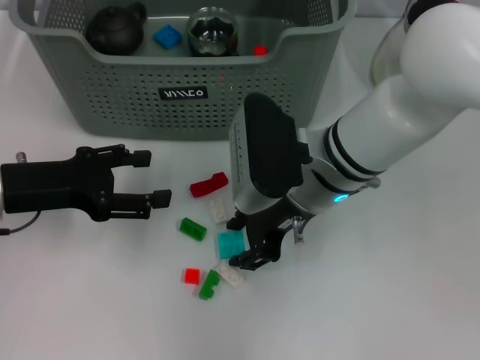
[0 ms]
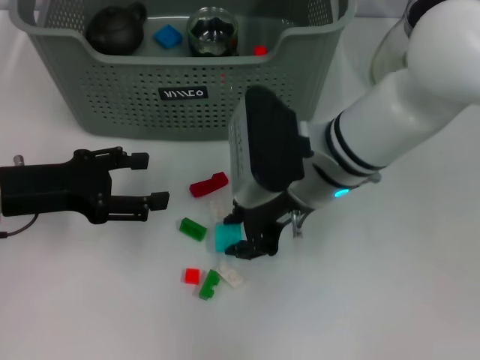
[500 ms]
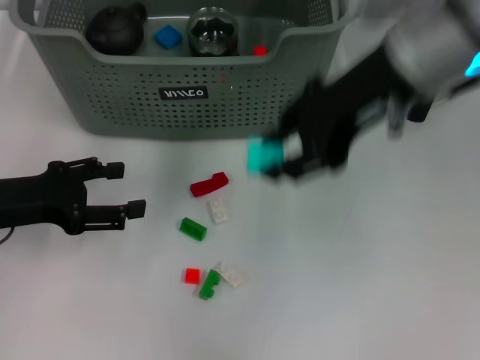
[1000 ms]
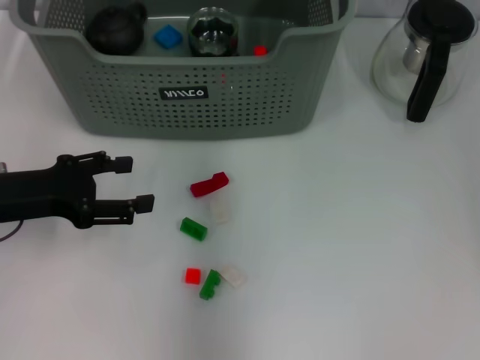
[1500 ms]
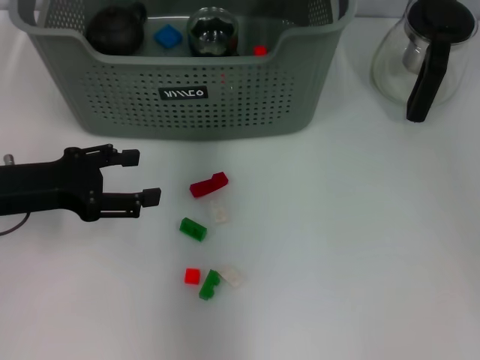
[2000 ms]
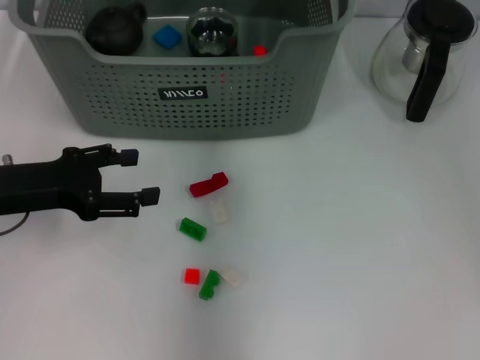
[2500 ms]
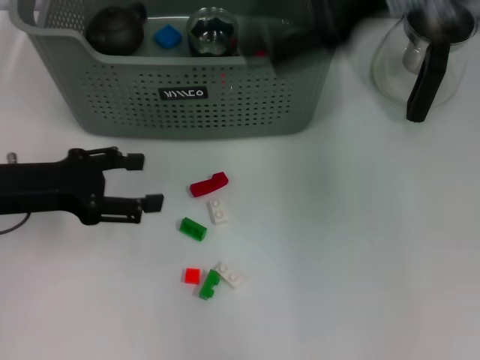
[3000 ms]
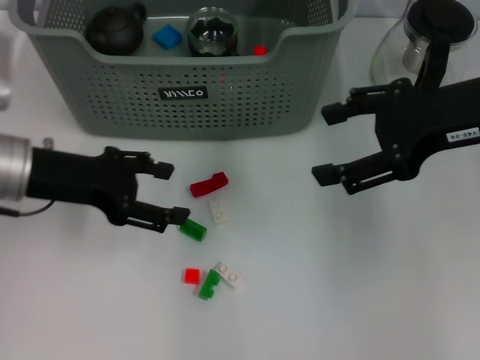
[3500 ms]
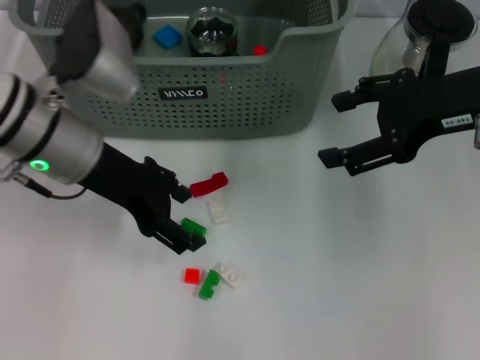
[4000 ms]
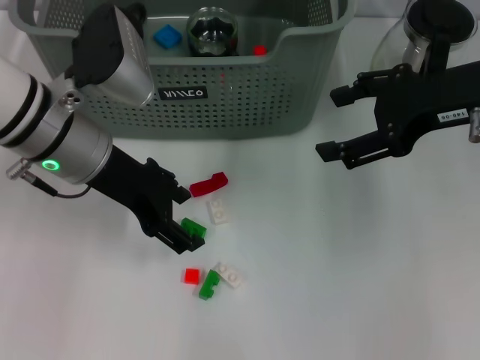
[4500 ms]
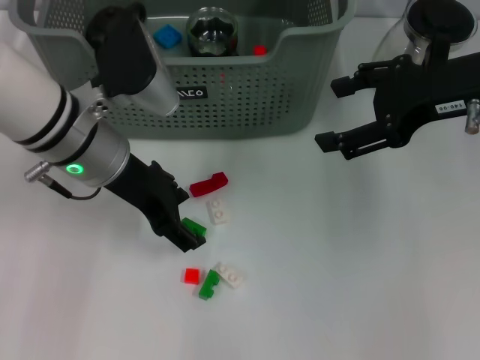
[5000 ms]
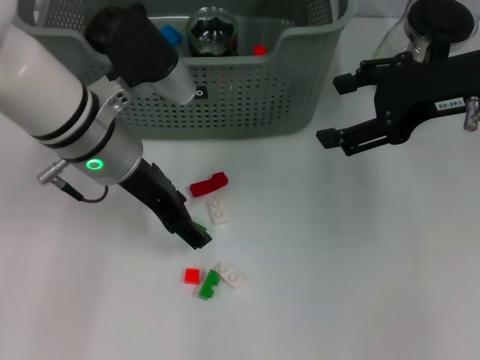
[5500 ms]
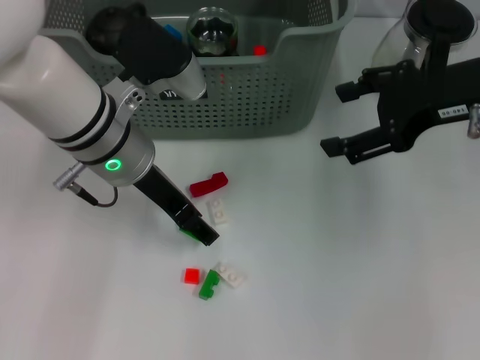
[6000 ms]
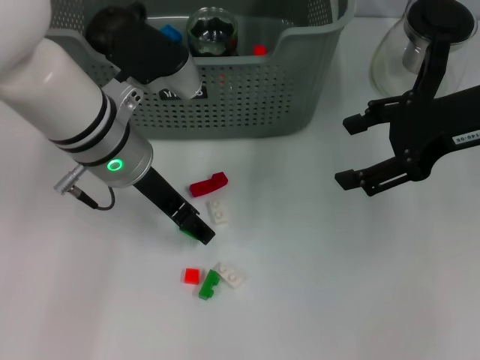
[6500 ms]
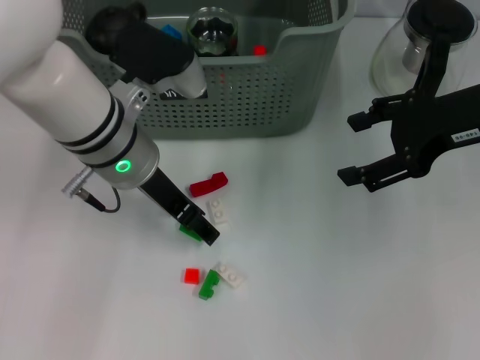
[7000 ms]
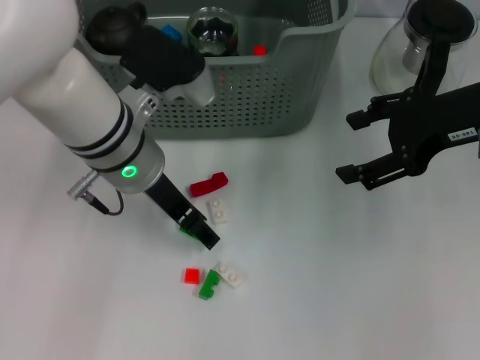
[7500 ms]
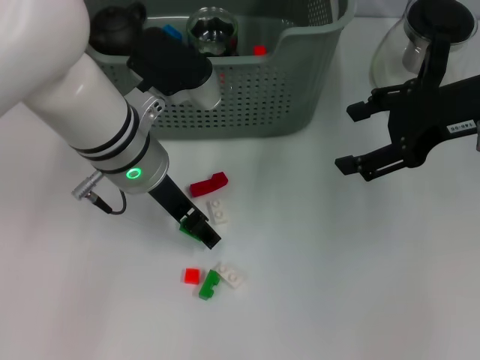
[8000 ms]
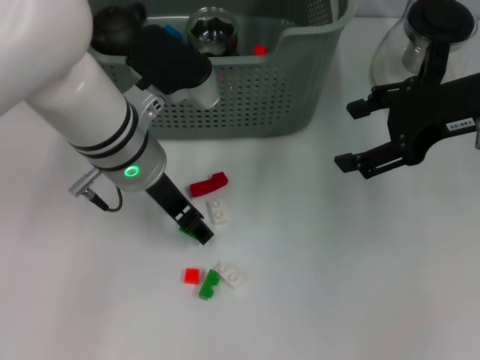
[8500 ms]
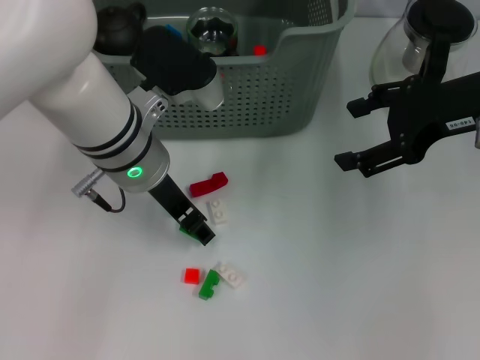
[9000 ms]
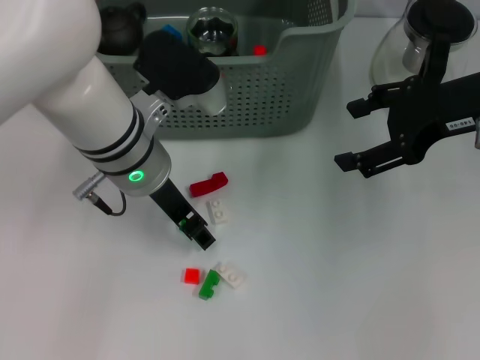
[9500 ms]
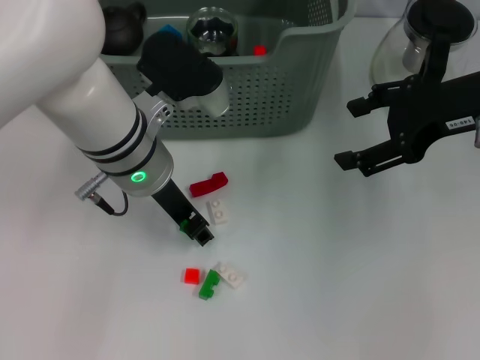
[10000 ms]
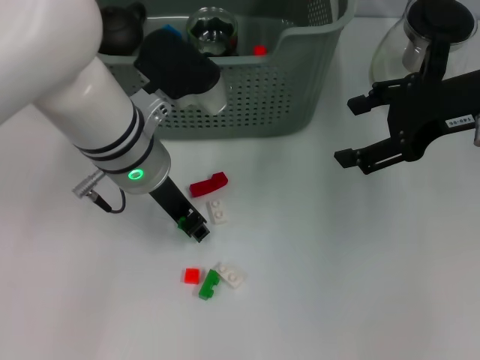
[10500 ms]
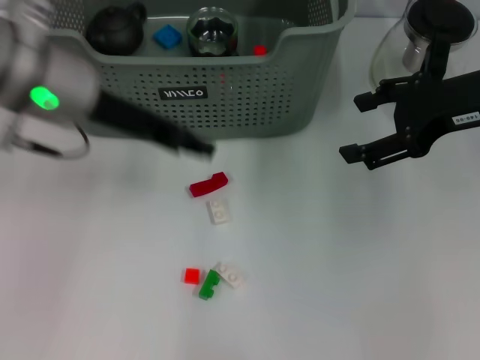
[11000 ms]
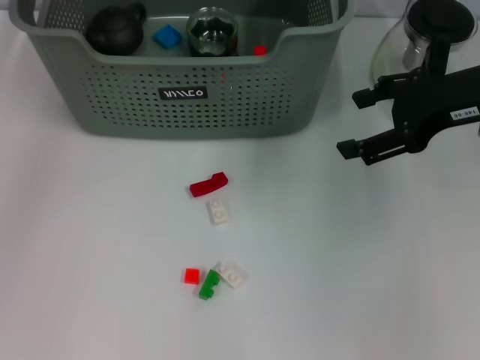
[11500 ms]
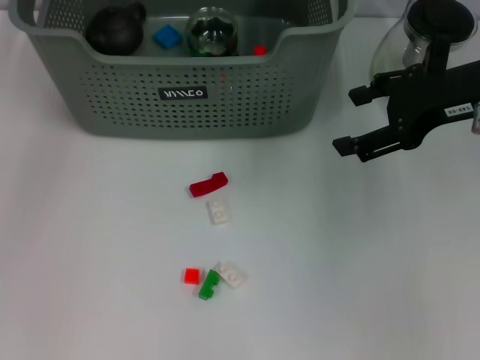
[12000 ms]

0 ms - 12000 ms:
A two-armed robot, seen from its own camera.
Task of the whole recording: pick up the teacup on the table and place it into the storage bin, pick up the block on the table and place it into the storage bin.
Step, 500 ms - 2000 ms: Place the light blue block in the storage box with right gripper.
Step, 3000 ms - 10000 ms: Grasp the green block with right gripper.
0 ms - 2000 ms: The right gripper shifts about 20 cm upward and forward.
2000 ms - 4000 ms: The right gripper heads to the right and backward, covering roughly 20 cm, and opens its fingers. Meanwhile the left gripper goes approximately 15 cm to the right, upward and forward.
4000 ms - 6000 ms: The left gripper moves approximately 5 cm.
6000 ms - 8000 ms: The grippers stay close to where they were, moving slightly.
8000 ms - 10000 ms: Neither gripper changes place.
10000 ms - 12000 ms: The left gripper moves upward, to the left and forward, roughly 20 cm.

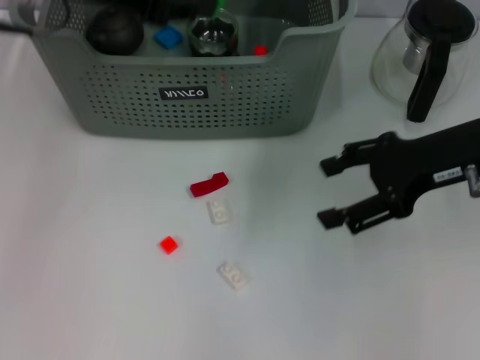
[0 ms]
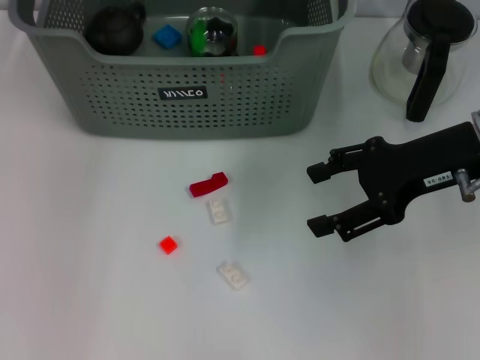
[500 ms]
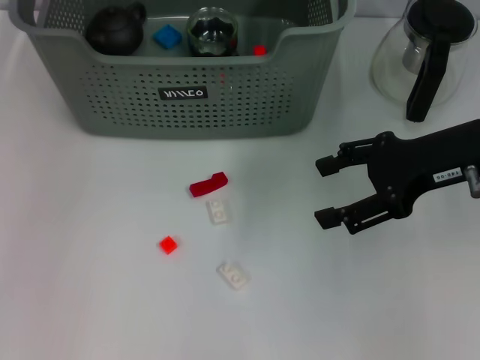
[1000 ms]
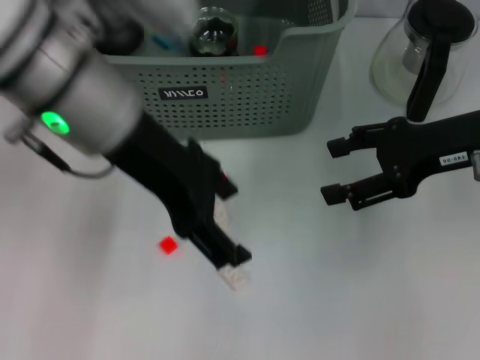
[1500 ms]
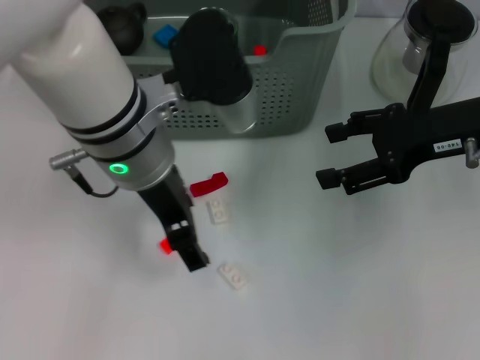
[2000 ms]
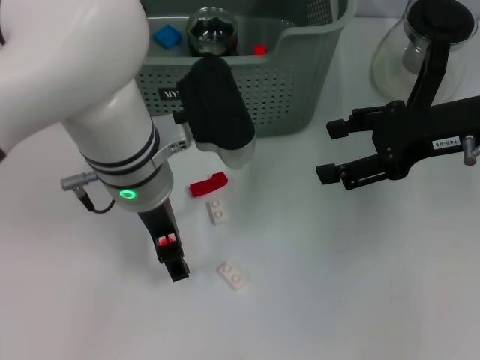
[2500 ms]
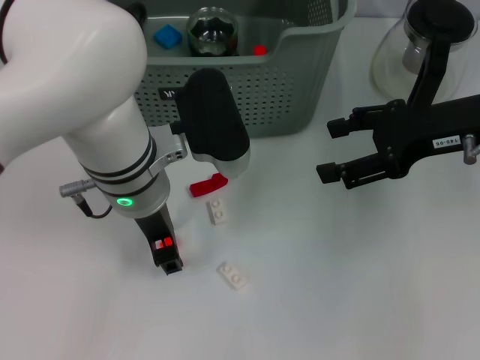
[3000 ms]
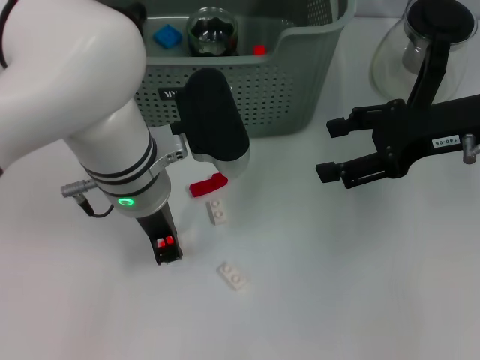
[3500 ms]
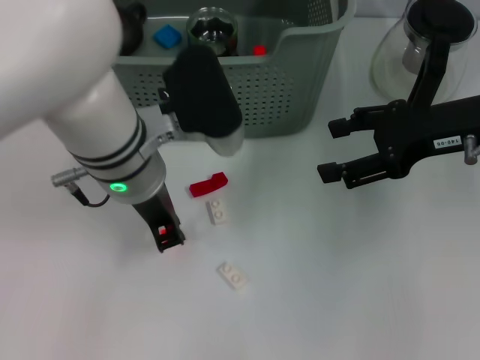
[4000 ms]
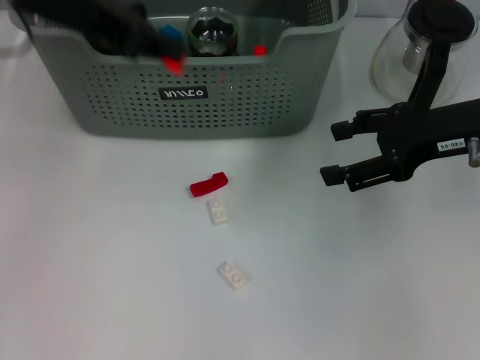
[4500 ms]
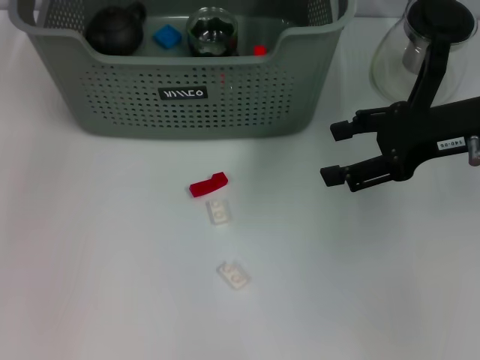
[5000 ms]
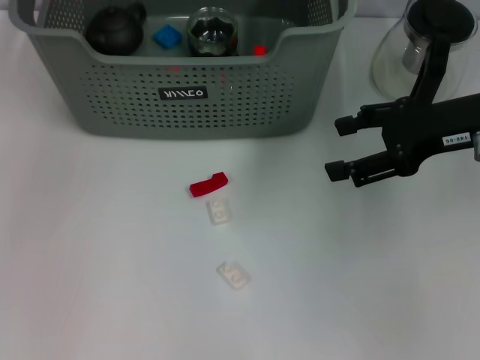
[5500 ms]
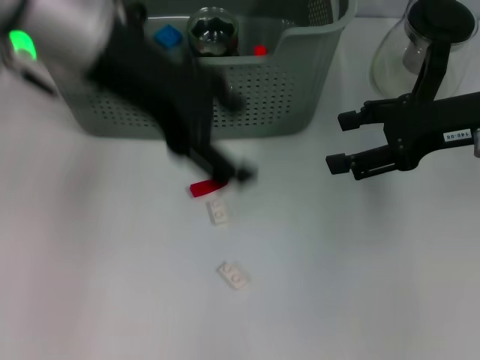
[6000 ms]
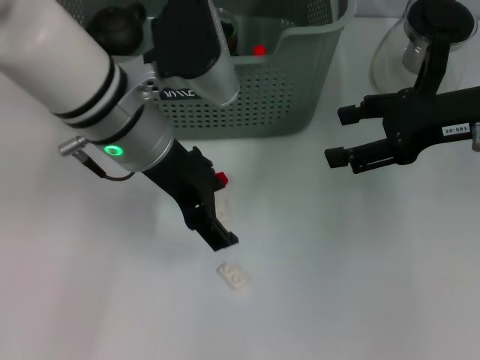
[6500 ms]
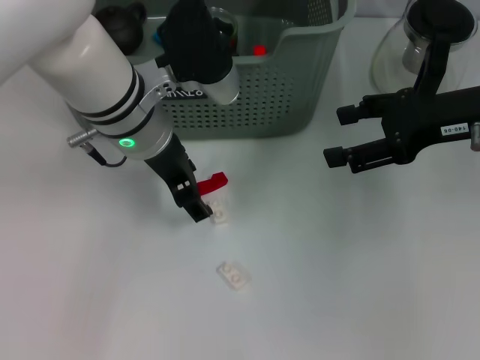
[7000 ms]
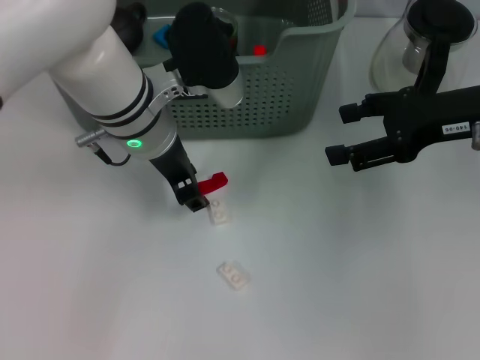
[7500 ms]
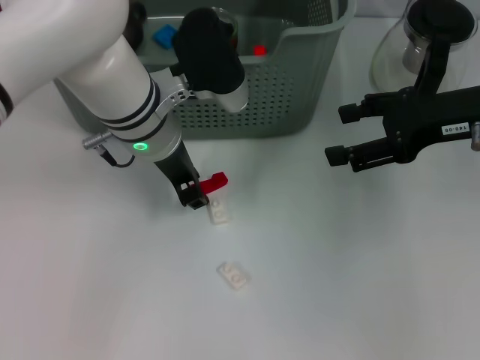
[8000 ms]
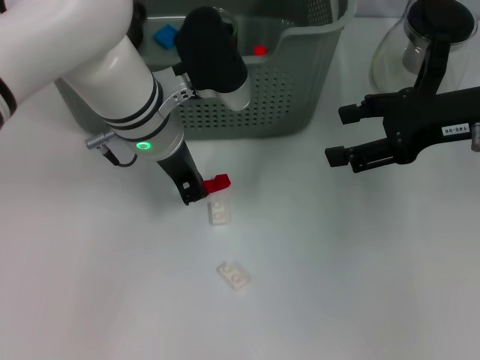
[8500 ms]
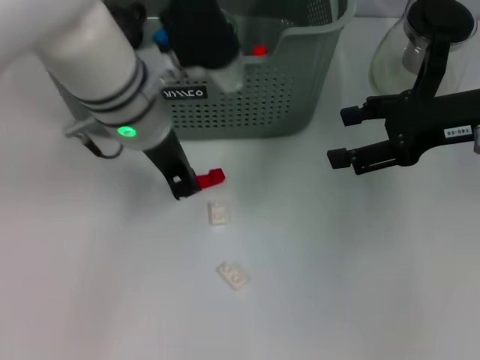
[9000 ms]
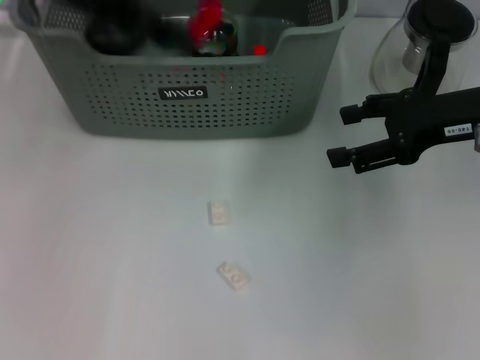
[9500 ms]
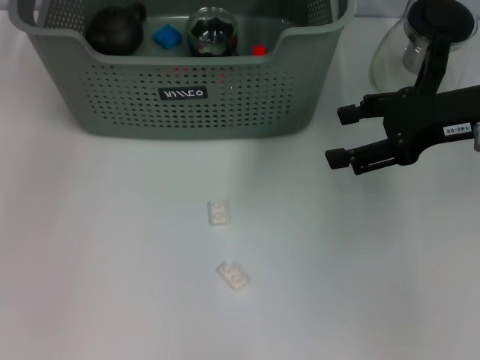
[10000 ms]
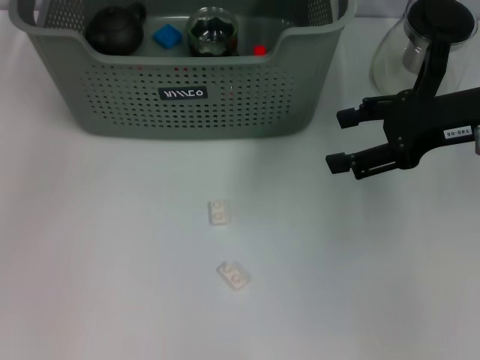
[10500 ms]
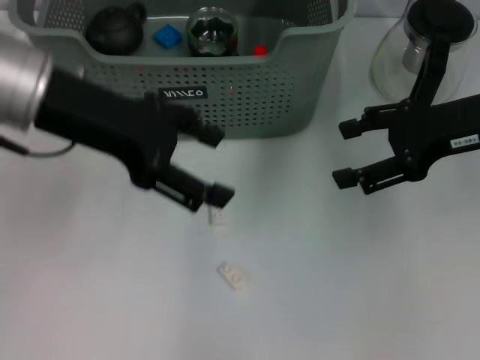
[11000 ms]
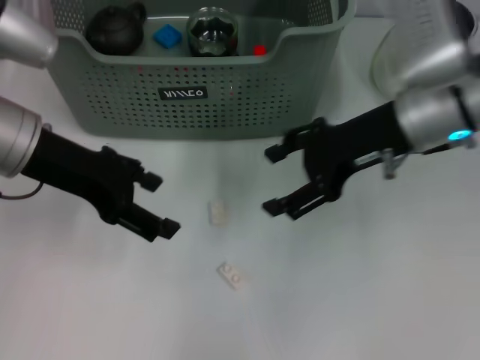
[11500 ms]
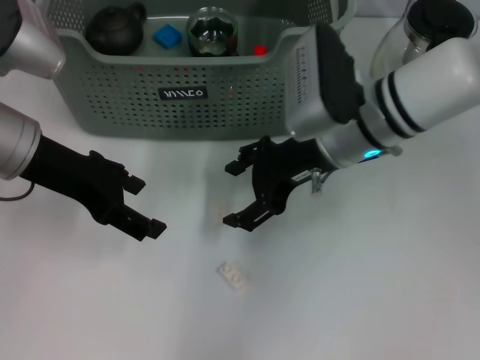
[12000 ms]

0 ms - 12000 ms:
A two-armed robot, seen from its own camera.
Task of the whole recording: pick up the teacup on the table and place it into the storage bin, pick up the block on the table and place it into the storage bin.
Step, 1000 ms - 3500 ms: Grasp the orange block with left gripper.
Step, 4000 ms - 5500 ms: Place the orange block in the storage box with left gripper.
Step, 6000 ms - 8500 ms: Grasp the red block with left gripper.
Step, 9000 ms - 10500 ms: Place the red block in the storage box with left gripper.
0 ms - 2000 ms: The left gripper heads to the right, downward and backward, covering about 15 cm, and opens.
2000 ms - 4000 ms: The left gripper closes.
4000 ms - 6000 ms: The left gripper shifts roughly 10 cm upward, and opens its fingers.
6000 ms - 8000 ms: The left gripper goes some 15 cm downward, and closes up.
8000 ms - 10000 ms: The left gripper heads upward, to the left and forward, covering roughly 25 cm.
10000 ms - 12000 ms: The left gripper travels downward and backward by approximately 20 cm, and opens up, while the right gripper shifts roughly 15 cm to the left.

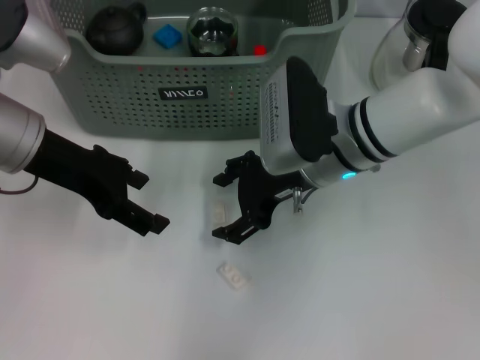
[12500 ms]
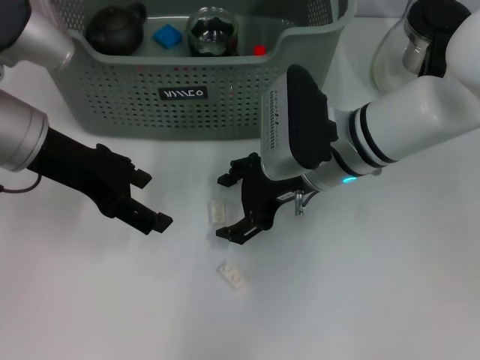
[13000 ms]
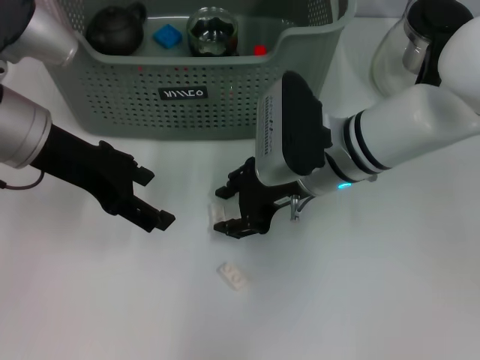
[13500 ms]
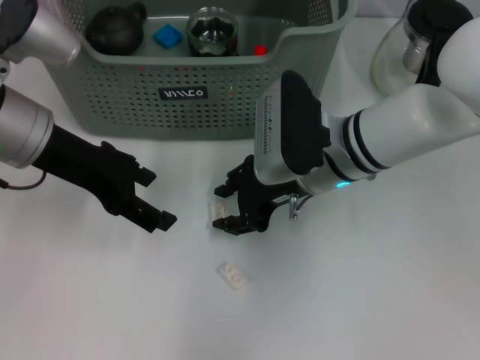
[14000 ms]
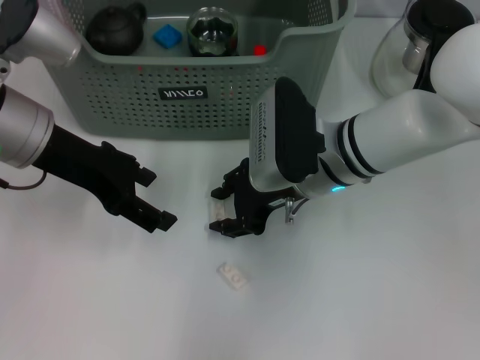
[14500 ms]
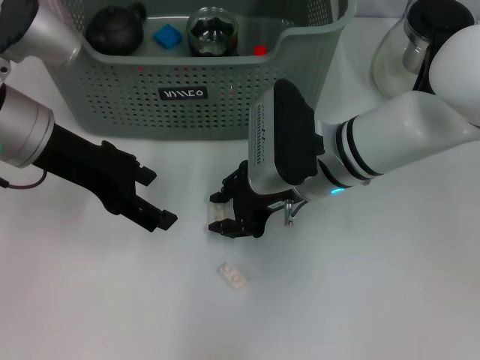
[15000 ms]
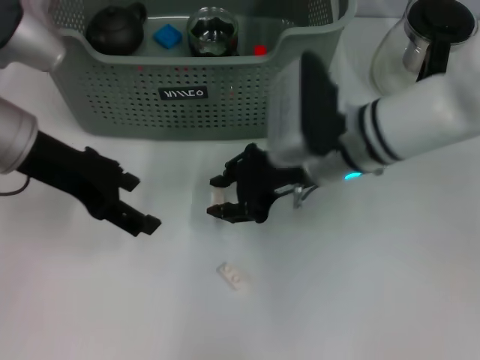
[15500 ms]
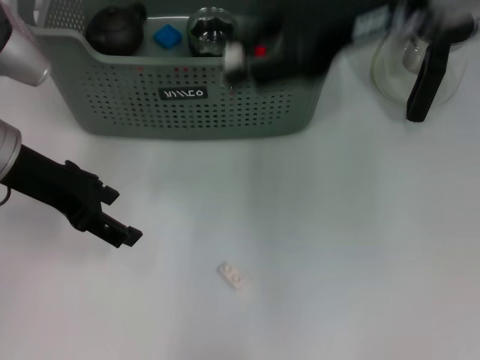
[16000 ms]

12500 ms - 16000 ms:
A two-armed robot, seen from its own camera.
Task of the whole recording: pick up the teacup on the table and place it into the storage bin, pick up the block on the table and place it into the storage bin.
Step, 12500 ms - 15000 ms: Grasp the white block with right gripper.
12500 ms - 14500 ms: The right gripper closes up.
14500 ms - 16000 ms: The right gripper goes about 20 cm upward.
